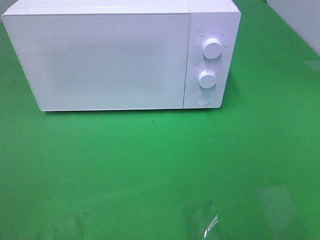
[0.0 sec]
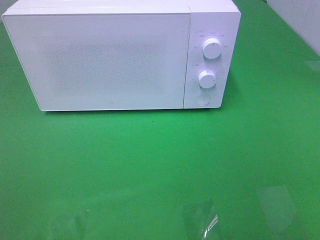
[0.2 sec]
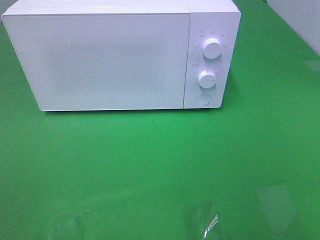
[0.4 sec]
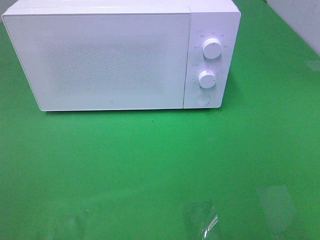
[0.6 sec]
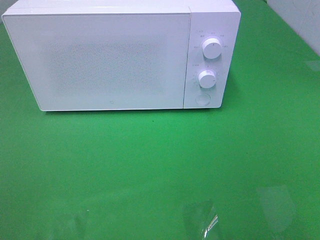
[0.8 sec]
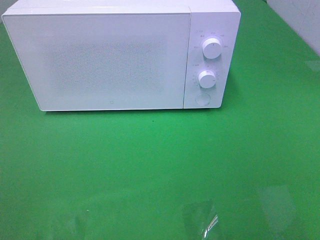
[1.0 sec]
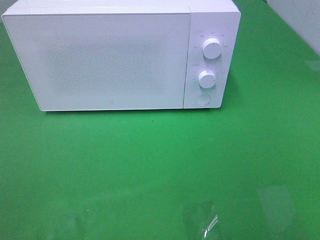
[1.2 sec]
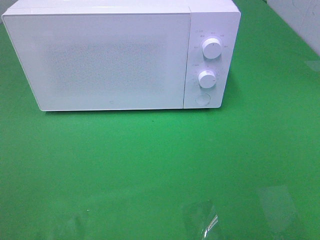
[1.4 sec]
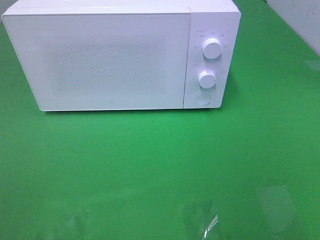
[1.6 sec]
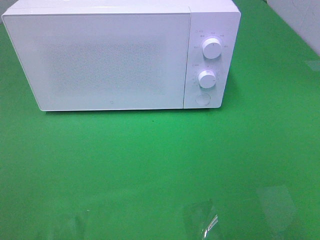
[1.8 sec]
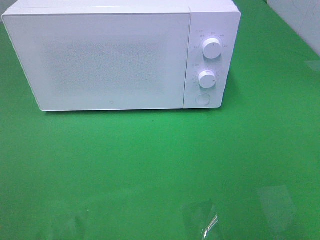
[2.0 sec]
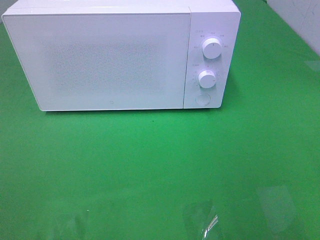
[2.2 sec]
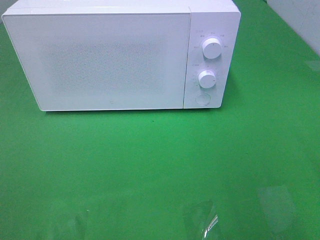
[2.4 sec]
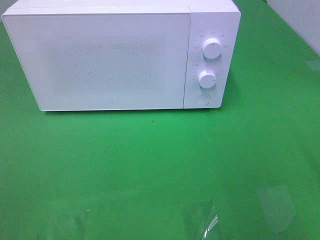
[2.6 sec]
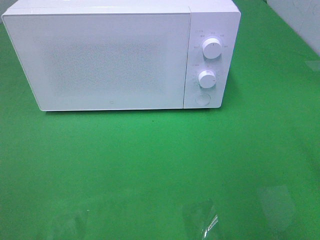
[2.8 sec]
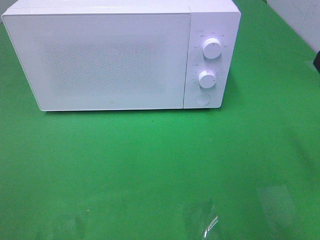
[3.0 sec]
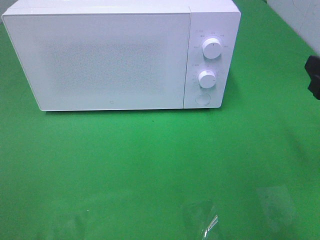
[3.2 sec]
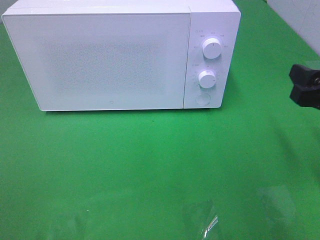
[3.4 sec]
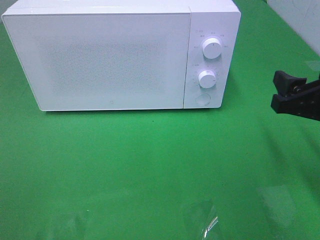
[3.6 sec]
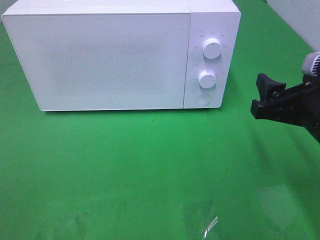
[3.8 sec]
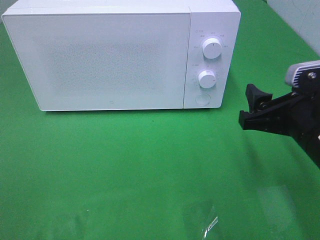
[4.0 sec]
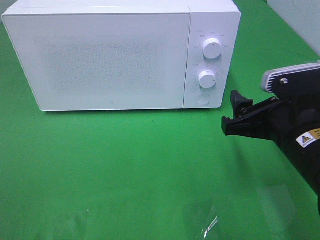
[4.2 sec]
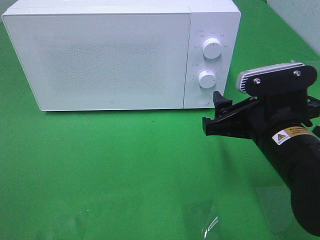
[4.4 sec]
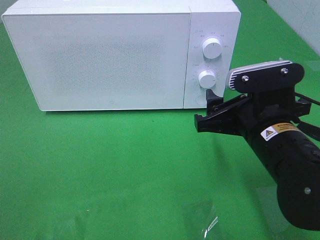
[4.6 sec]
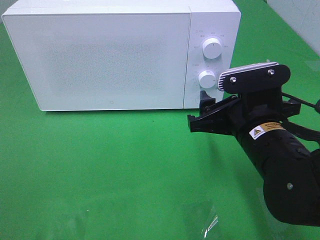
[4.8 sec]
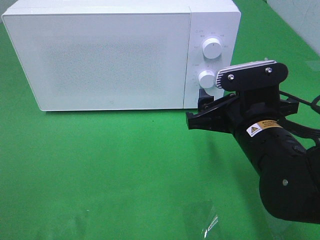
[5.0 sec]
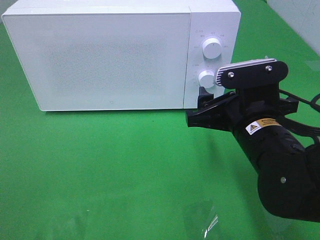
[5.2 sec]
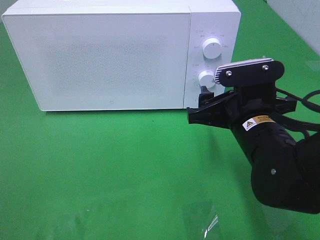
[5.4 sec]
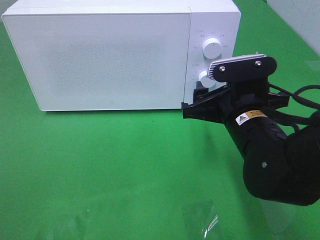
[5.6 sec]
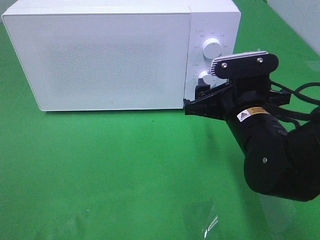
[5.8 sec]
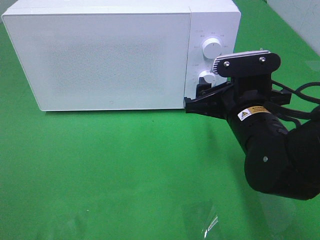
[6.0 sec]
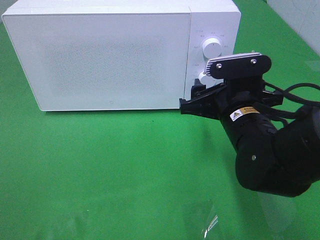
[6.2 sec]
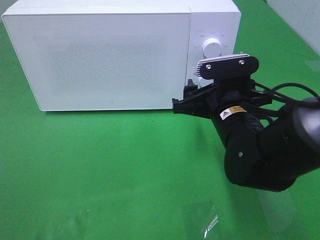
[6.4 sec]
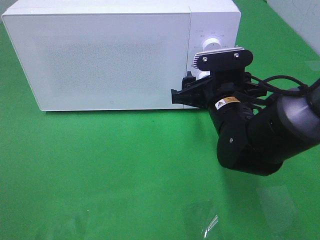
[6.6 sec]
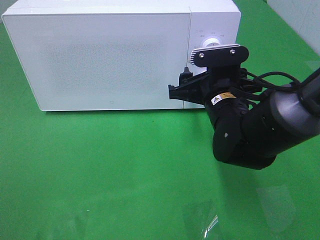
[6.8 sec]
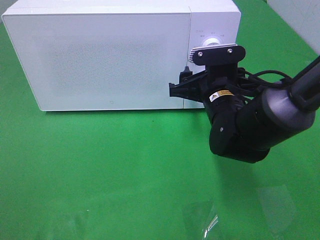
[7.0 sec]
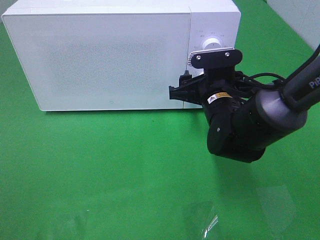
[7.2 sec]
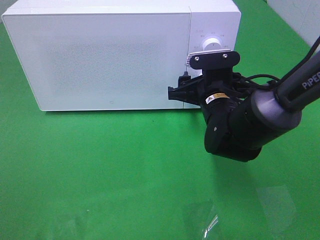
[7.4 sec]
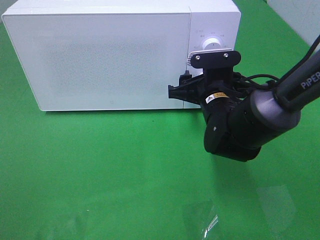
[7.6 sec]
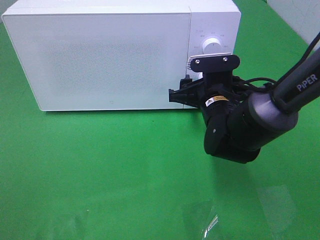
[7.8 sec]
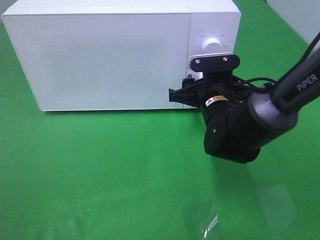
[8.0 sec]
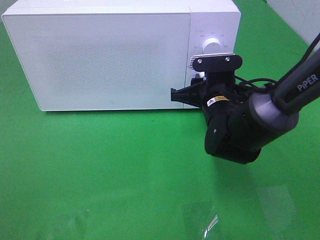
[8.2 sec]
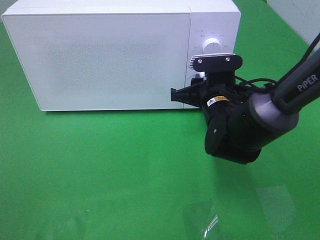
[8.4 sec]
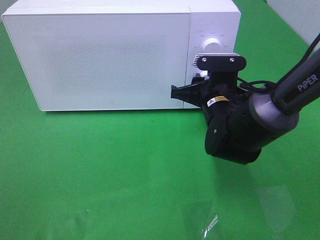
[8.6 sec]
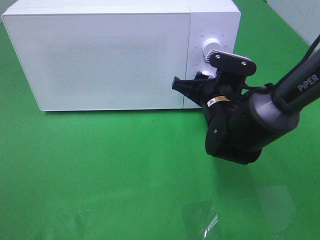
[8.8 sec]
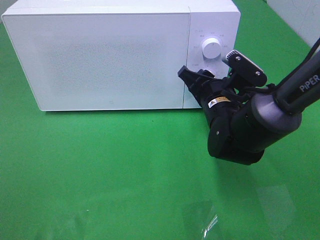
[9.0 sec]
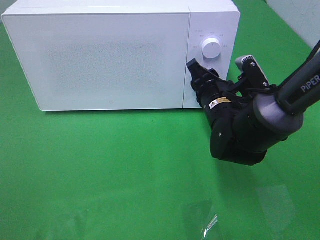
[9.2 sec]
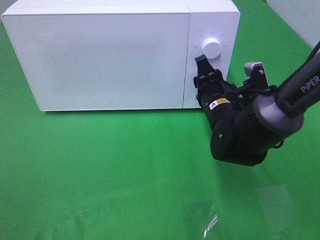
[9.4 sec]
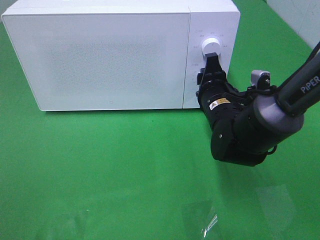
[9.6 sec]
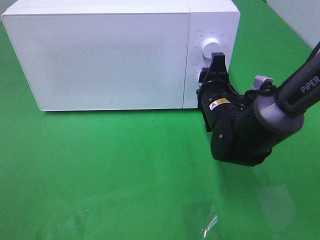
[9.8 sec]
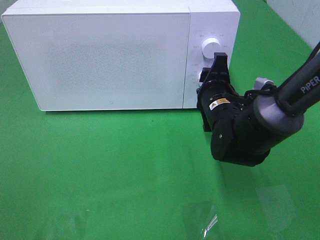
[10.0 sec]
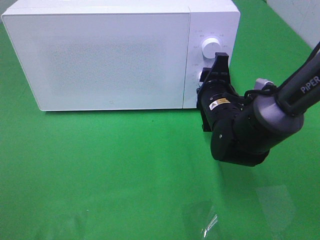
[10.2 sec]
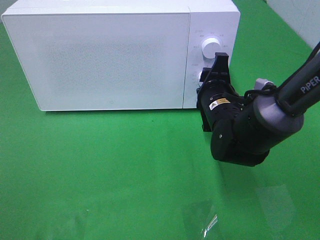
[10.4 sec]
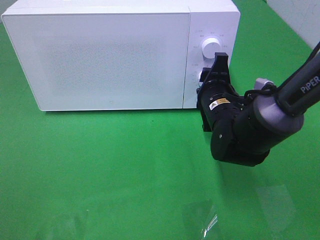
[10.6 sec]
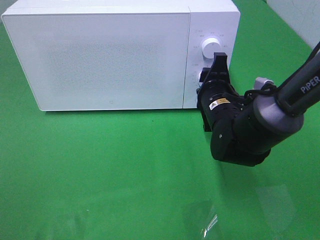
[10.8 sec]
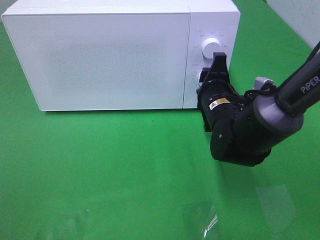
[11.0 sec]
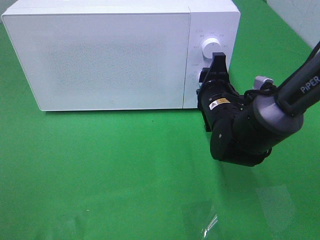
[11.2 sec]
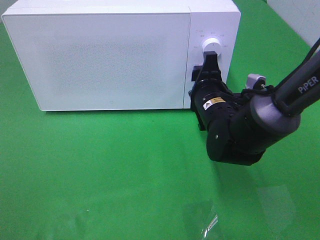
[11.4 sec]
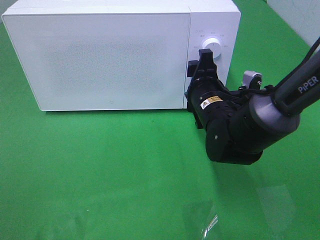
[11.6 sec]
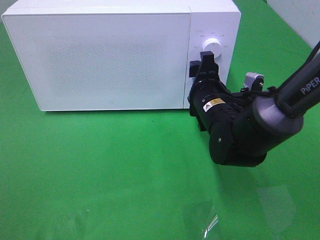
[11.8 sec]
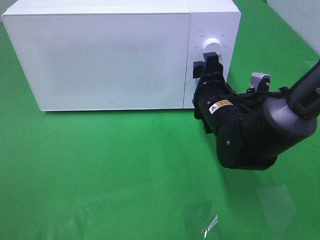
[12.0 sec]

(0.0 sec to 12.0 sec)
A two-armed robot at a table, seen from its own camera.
Task of the whole recording: Heat the burger.
3.0 sec - 4.4 sec: The right gripper moves to the left and downward, approximately 15 cm.
4.4 sec - 6.0 sec: The right gripper moves some 5 cm.
6.0 sec - 7.6 sec: The right gripper is displaced forward by roughly 10 cm.
10.4 sec - 12.0 sec: There are only small adjustments of the grippers.

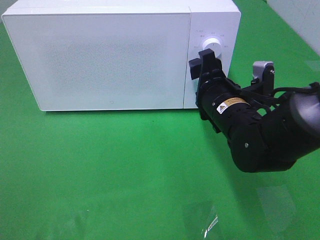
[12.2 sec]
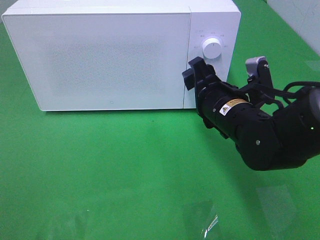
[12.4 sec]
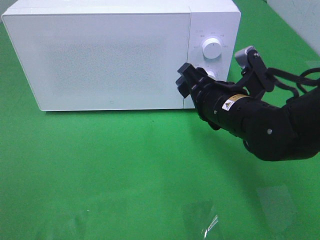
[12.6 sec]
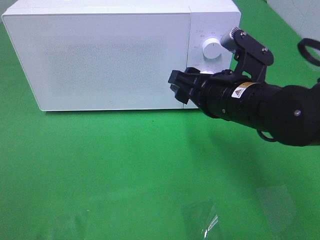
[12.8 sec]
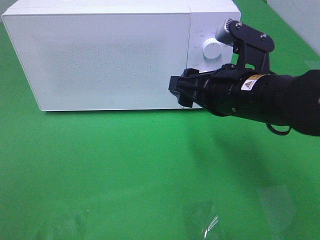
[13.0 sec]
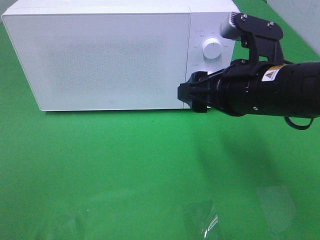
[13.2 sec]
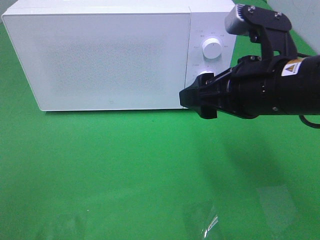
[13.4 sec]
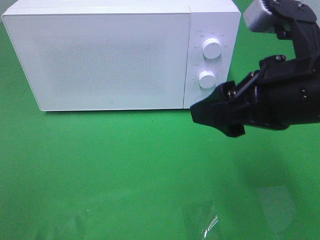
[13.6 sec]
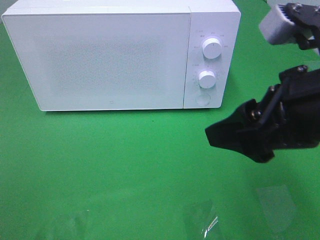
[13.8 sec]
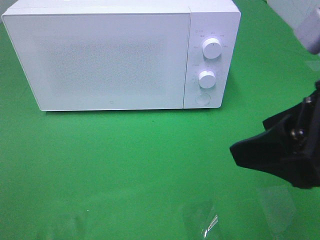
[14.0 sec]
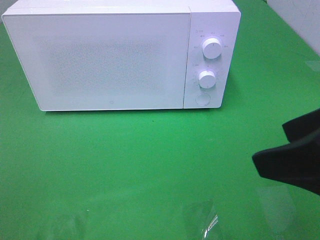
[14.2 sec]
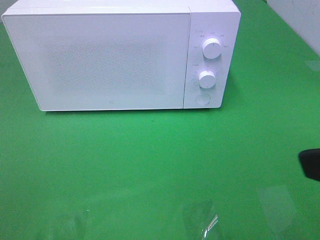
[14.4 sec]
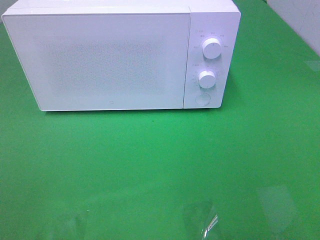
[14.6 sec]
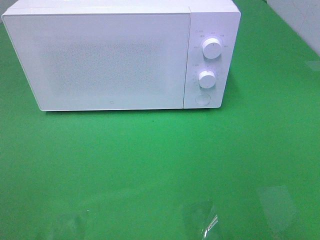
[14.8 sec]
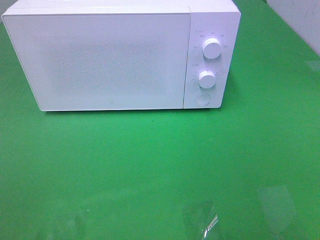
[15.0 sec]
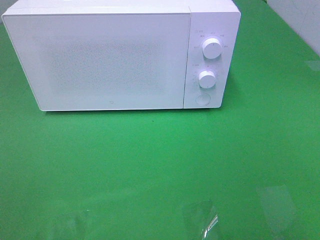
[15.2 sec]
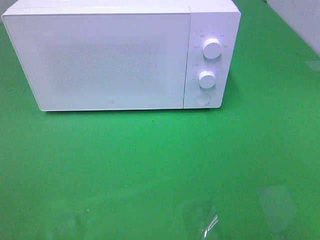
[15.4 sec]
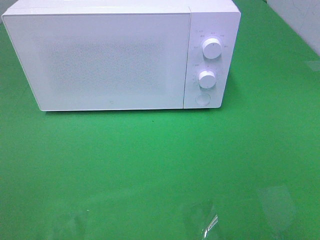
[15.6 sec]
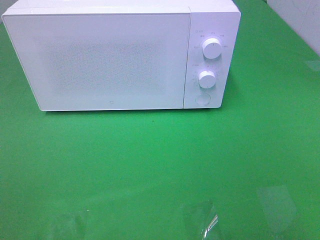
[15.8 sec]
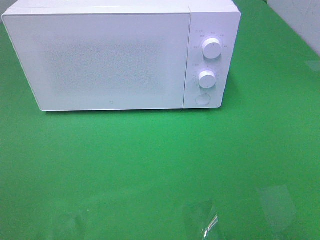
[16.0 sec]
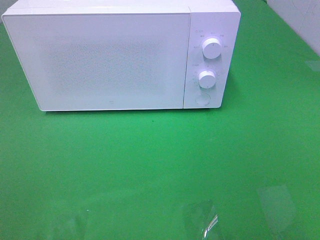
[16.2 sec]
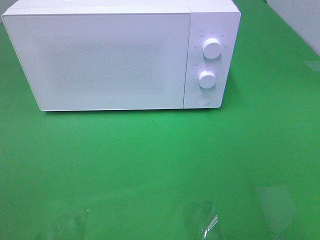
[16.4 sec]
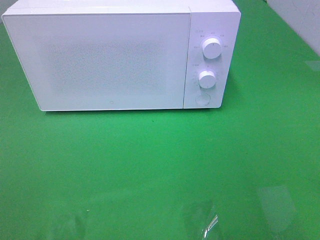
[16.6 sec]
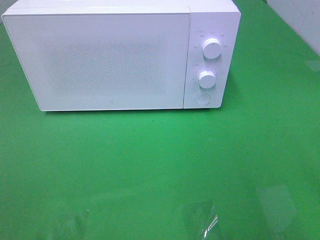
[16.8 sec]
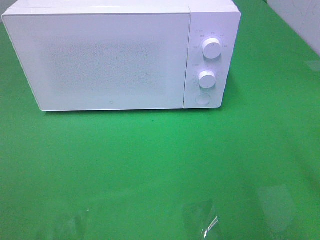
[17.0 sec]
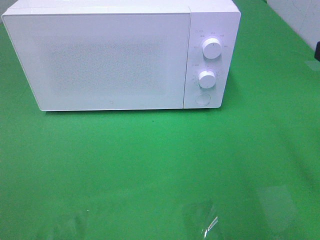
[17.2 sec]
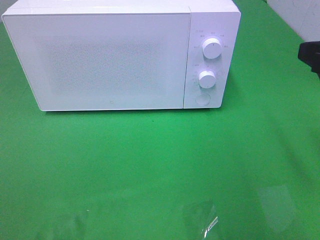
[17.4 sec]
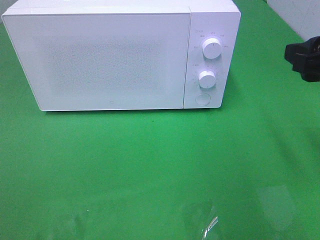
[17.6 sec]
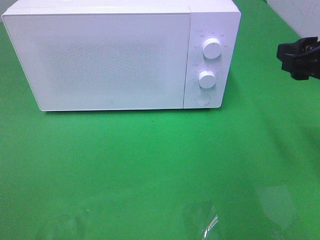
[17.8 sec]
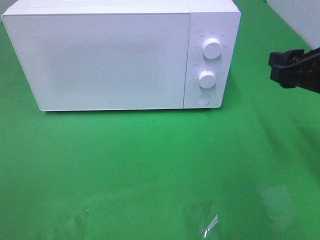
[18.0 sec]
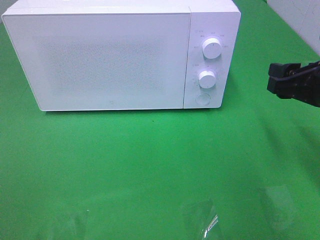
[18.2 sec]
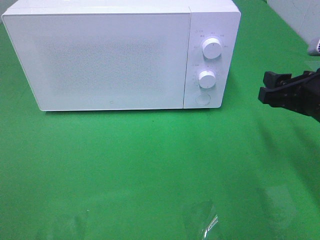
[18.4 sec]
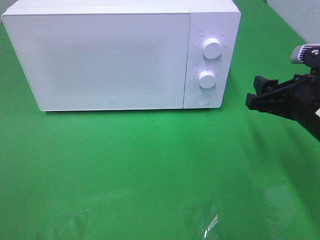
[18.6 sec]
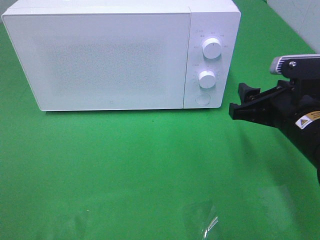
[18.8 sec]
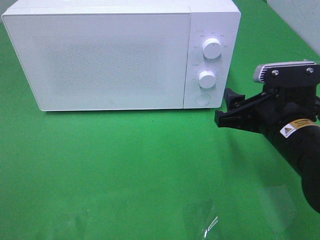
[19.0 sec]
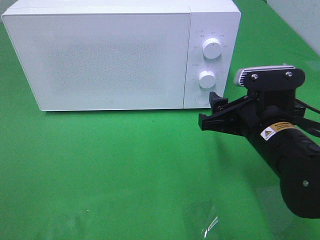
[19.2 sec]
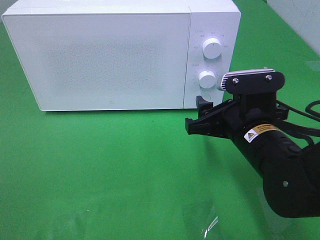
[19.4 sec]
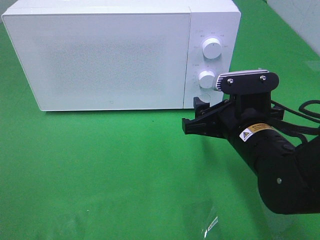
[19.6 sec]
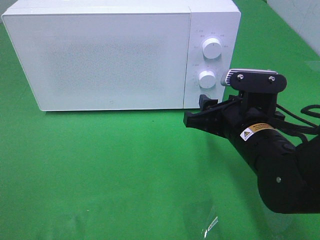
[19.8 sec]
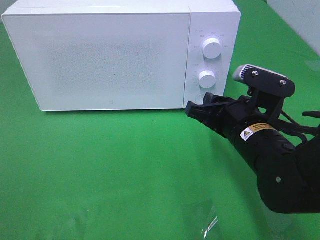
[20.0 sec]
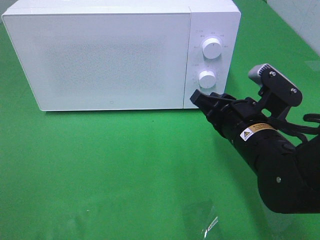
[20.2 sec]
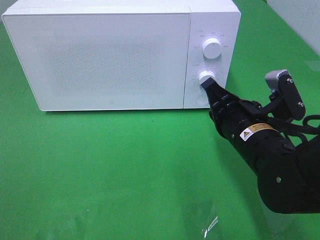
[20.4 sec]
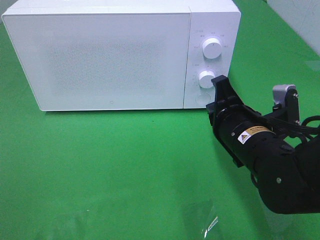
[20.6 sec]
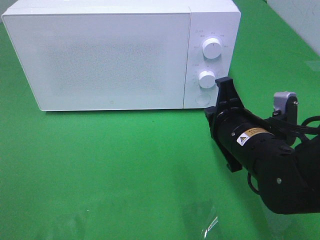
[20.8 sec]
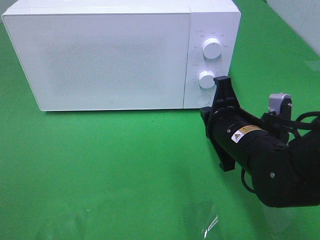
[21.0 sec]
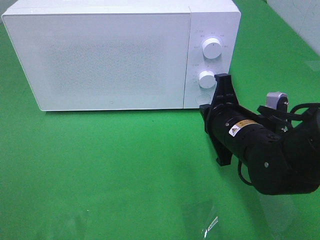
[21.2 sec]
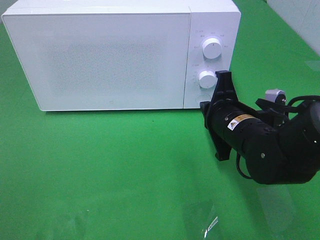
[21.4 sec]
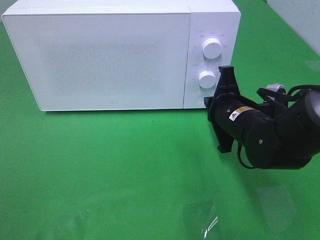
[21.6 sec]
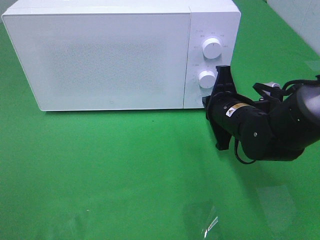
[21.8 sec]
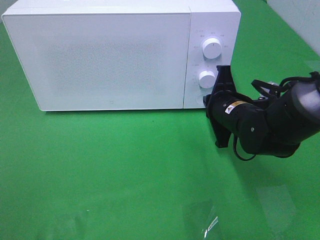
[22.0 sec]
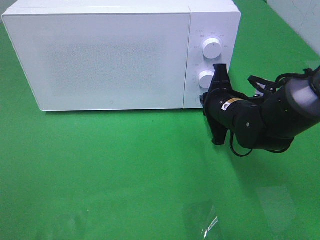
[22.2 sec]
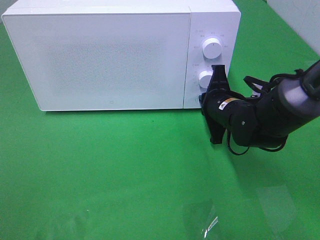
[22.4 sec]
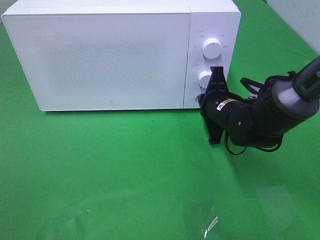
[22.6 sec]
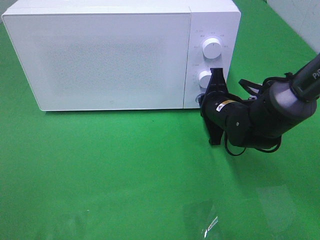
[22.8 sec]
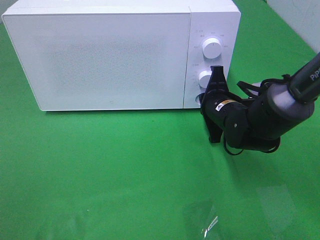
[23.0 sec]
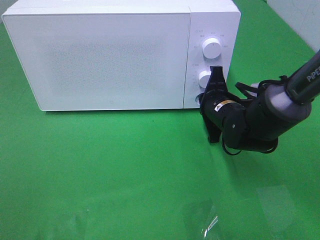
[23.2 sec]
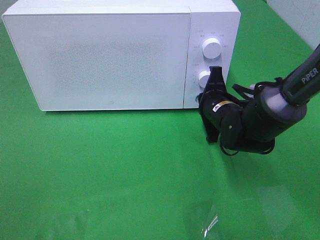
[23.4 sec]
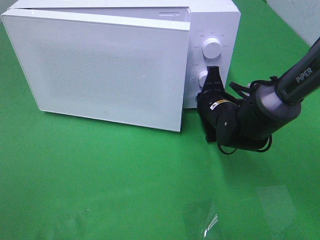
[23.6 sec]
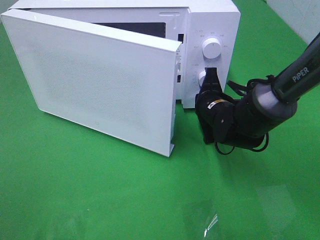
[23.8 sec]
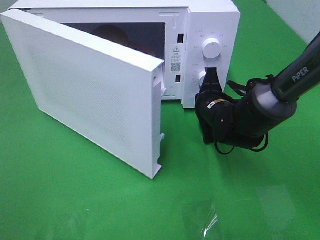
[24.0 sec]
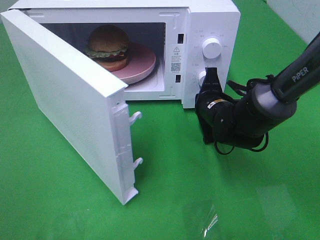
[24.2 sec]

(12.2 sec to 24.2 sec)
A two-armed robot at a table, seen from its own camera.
Task of the whole recording: Heat the burger.
12.2 sec - 13.8 sec: The right gripper shifts some 20 cm upward and backward.
13.8 sec - 15.2 sec: The right gripper goes about 20 cm backward and to the right.
16.6 sec - 18.2 sec: The right gripper heads forward and downward, covering approximately 20 cm.
18.2 sec - 19.8 sec: The right gripper goes approximately 15 cm to the left and downward.
19.8 sec - 21.2 sec: The right gripper closes.
21.2 sec - 22.6 sec: The right gripper is displaced forward by about 10 cm.
